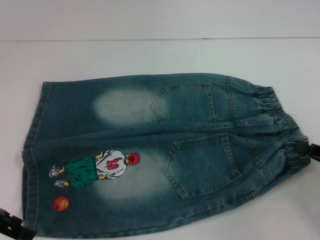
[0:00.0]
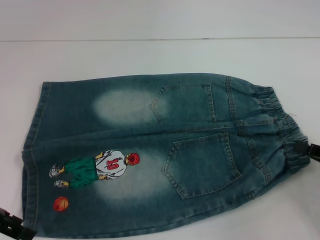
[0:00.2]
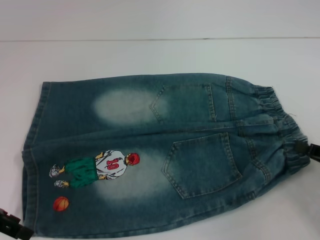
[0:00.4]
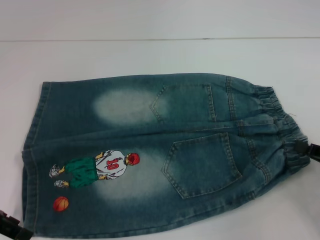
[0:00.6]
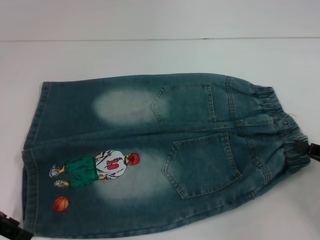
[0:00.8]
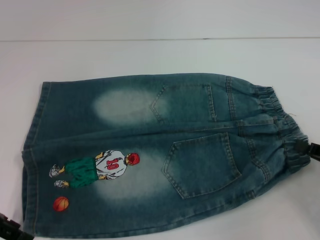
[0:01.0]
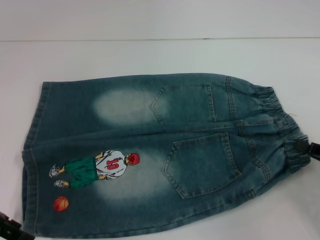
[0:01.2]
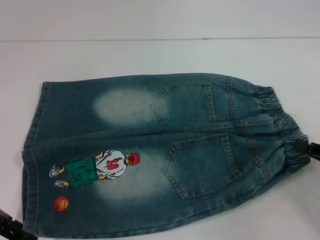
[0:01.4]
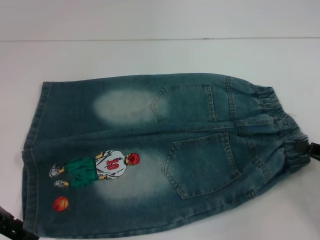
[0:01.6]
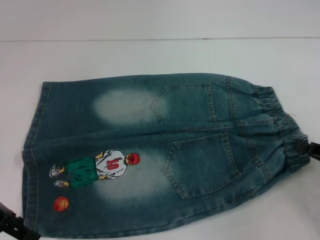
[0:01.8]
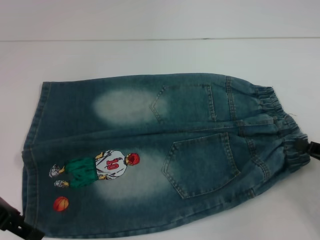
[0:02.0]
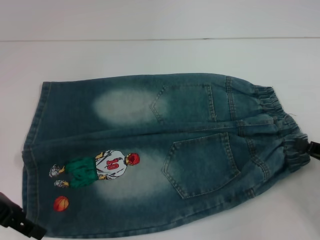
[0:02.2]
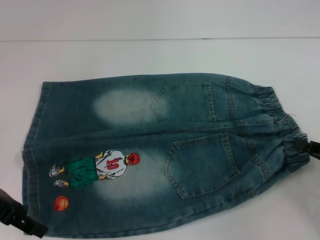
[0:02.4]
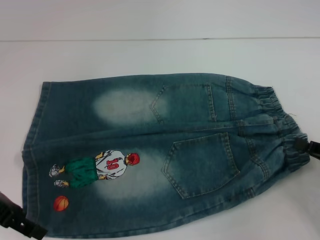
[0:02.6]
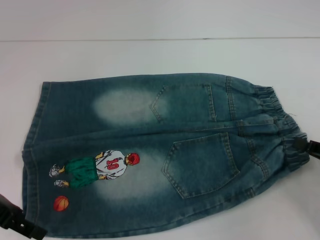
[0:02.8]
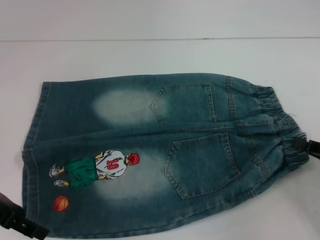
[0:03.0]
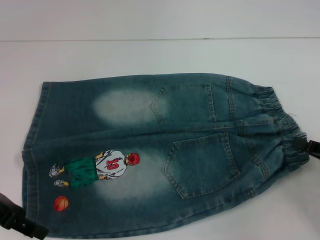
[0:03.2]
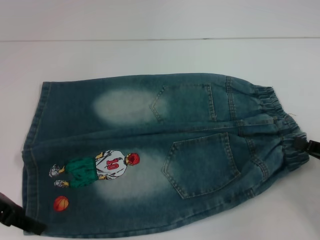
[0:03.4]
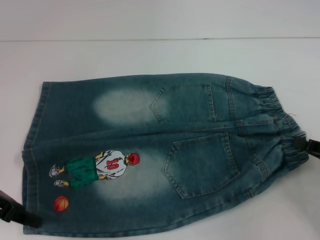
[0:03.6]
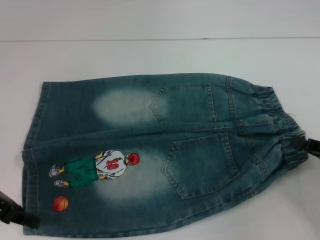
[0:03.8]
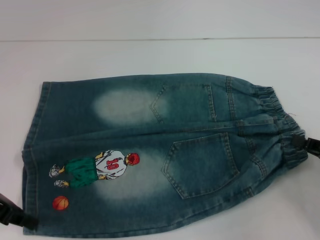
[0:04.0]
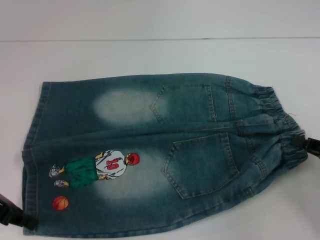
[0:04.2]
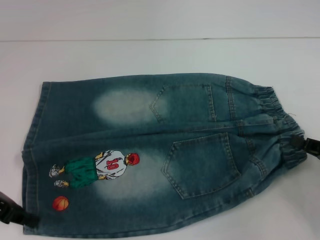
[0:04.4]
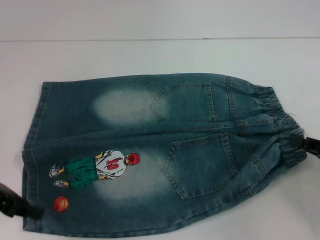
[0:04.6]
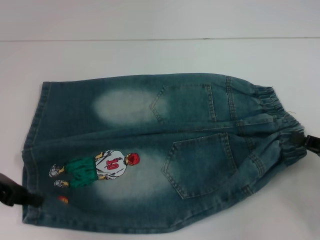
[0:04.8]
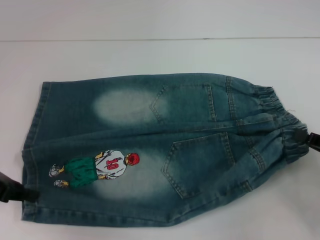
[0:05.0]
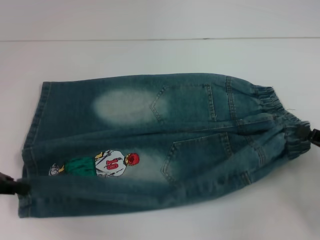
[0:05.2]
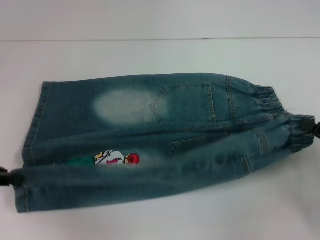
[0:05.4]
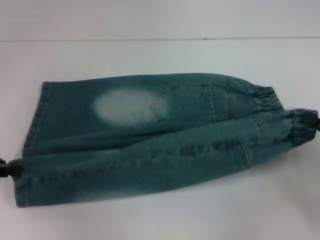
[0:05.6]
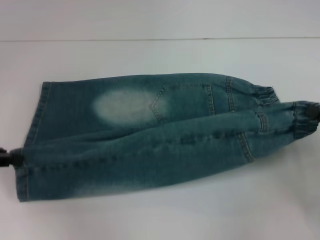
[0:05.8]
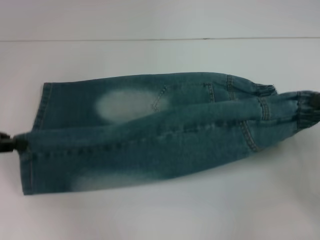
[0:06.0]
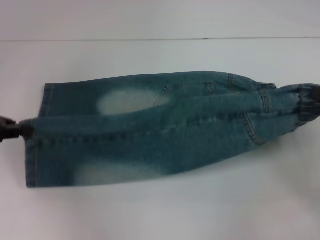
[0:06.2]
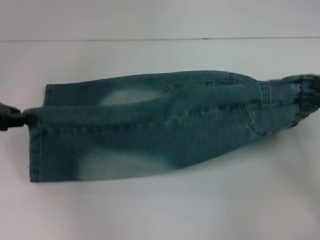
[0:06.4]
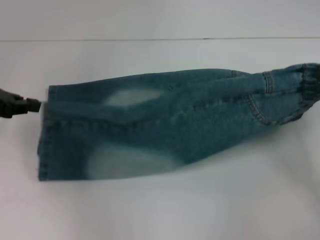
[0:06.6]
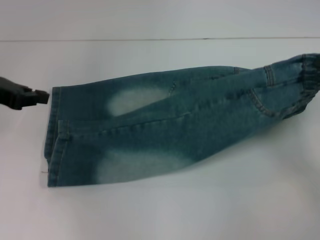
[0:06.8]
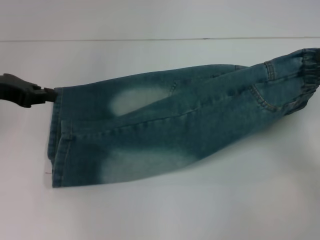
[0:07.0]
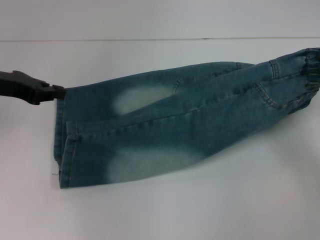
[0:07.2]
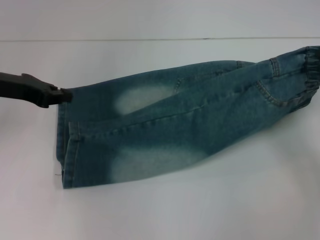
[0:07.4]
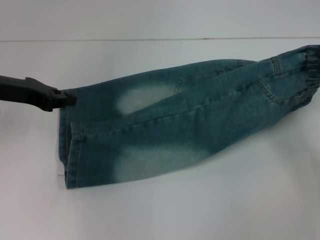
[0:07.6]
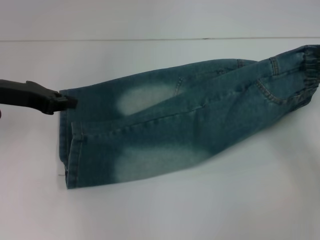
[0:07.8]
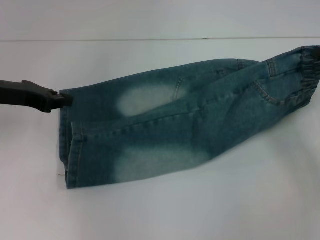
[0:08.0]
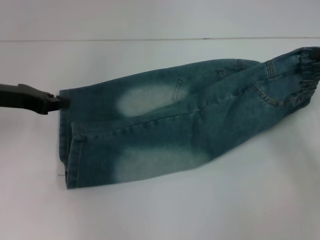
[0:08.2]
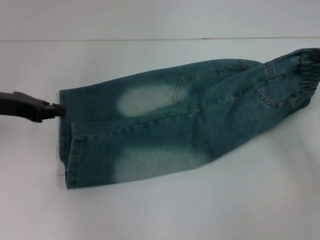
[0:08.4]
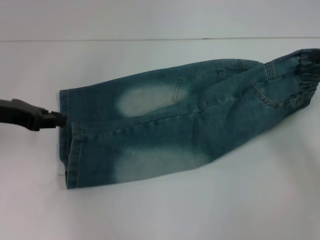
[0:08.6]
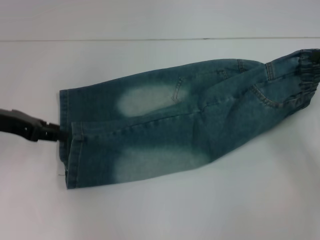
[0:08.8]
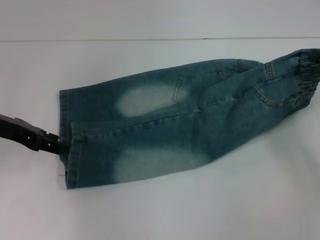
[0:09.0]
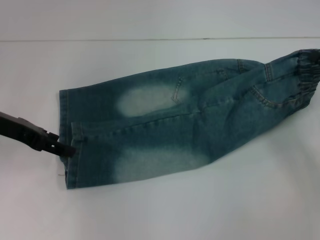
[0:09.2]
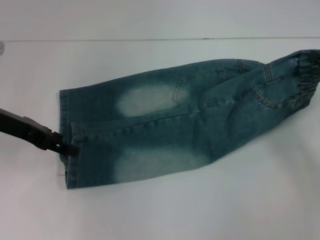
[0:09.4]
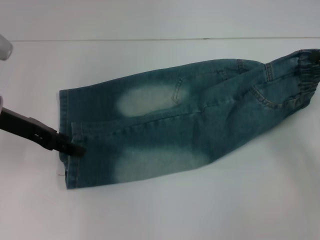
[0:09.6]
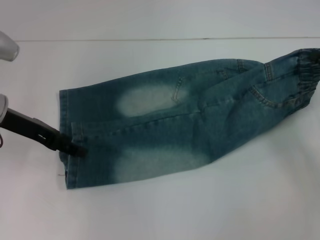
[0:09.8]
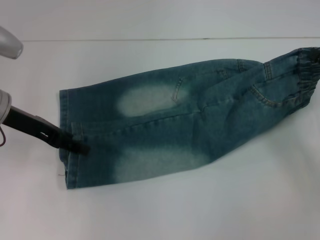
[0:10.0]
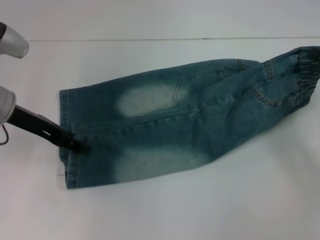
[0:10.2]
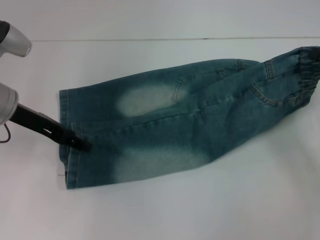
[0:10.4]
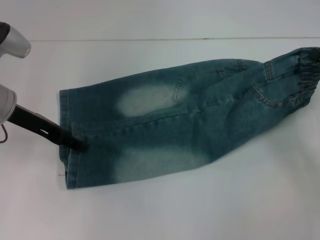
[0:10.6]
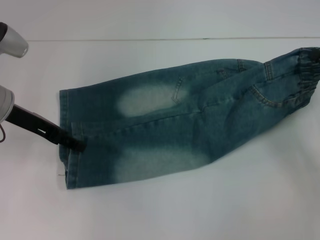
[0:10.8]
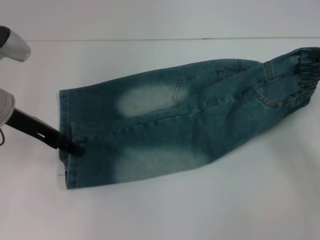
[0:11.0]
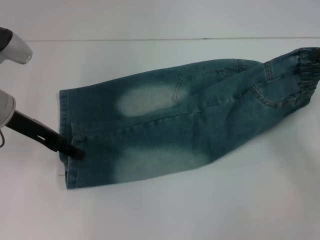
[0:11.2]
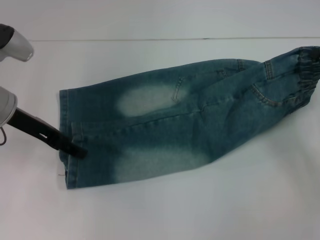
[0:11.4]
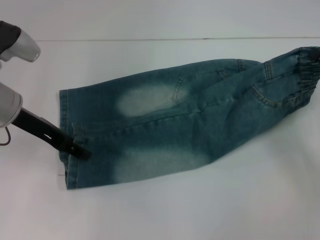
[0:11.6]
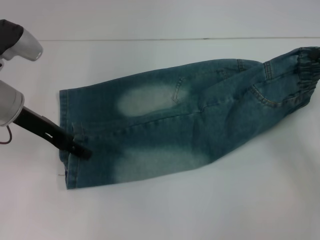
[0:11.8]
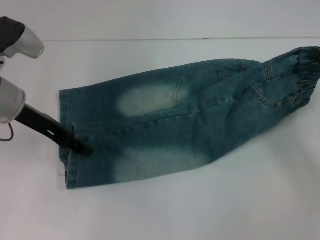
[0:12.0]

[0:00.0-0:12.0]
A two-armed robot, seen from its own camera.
0:01.6 to 0:03.0: Both grippers stay put.
0:03.0 to 0:04.4: The left gripper closes.
0:04.4 to 0:06.0: The left gripper ends up approximately 5 cm from where it was.
0:06.0 to 0:07.6: The right gripper moves forward, roughly 10 cm, while the left gripper shifts approximately 10 cm to the right and forward.
0:07.6 to 0:09.0: The grippers stay close to where they were, moving slightly.
0:09.0 to 0:10.4: The left gripper opens up.
0:10.4 to 0:12.0: The grippers stay close to where they were, moving slightly.
